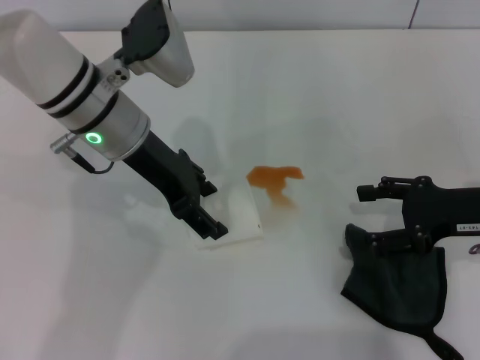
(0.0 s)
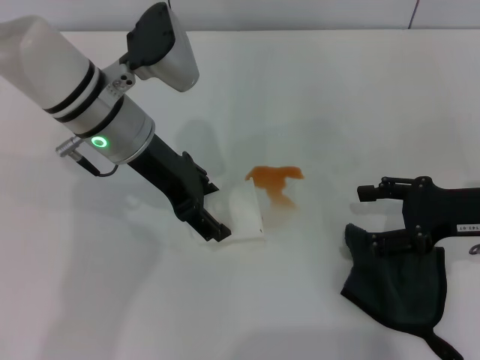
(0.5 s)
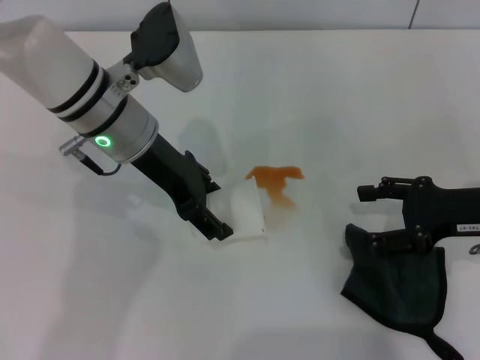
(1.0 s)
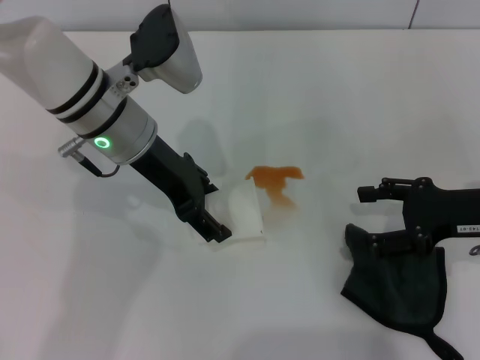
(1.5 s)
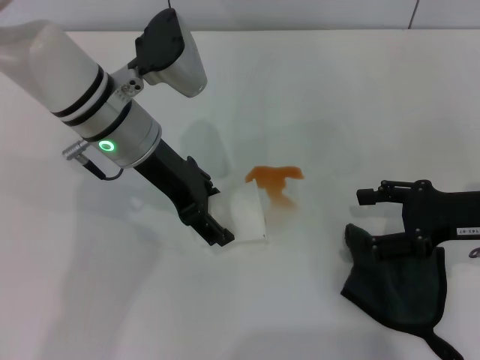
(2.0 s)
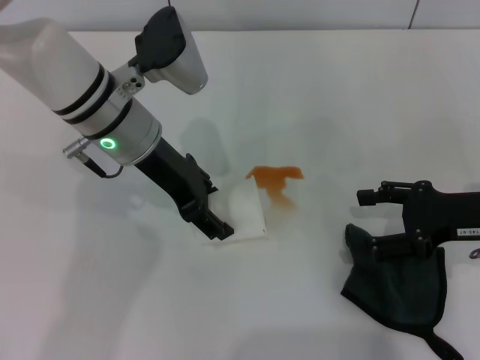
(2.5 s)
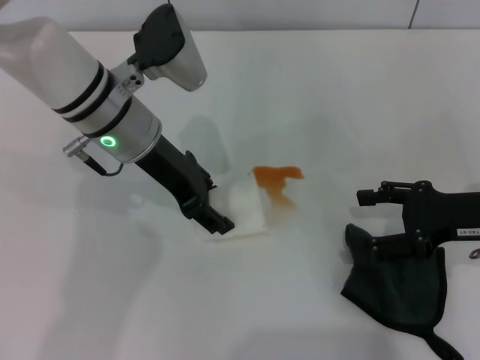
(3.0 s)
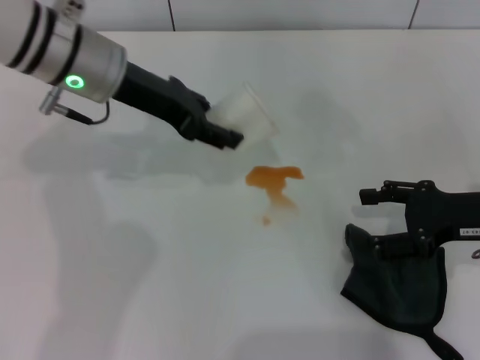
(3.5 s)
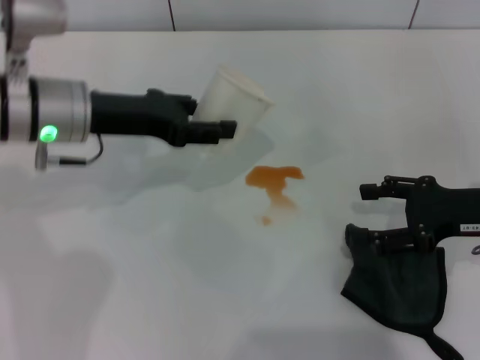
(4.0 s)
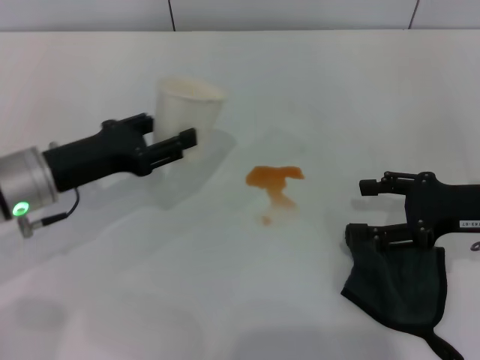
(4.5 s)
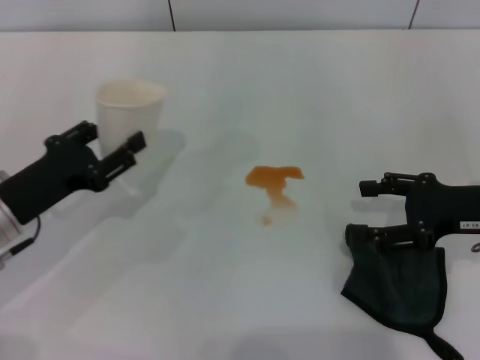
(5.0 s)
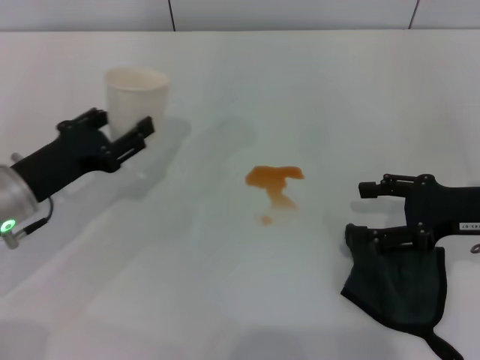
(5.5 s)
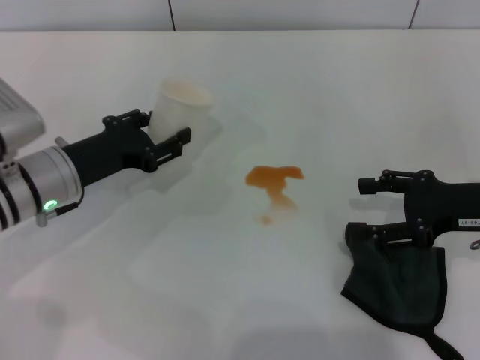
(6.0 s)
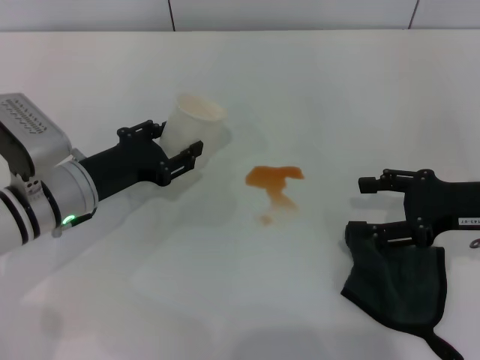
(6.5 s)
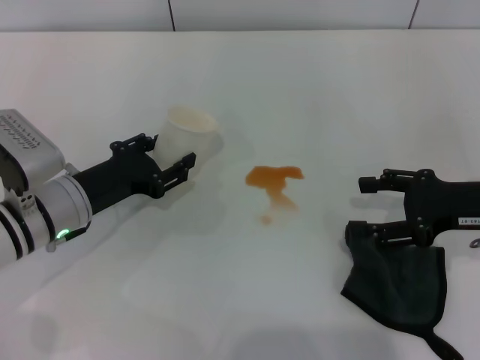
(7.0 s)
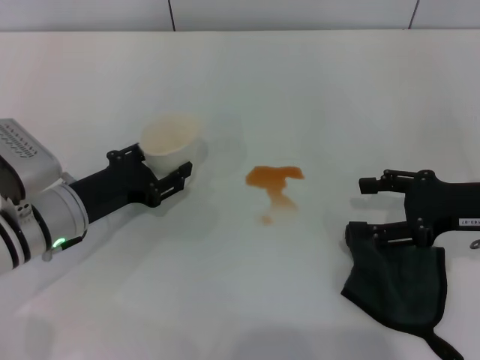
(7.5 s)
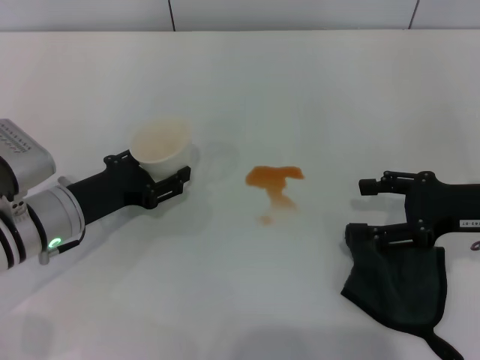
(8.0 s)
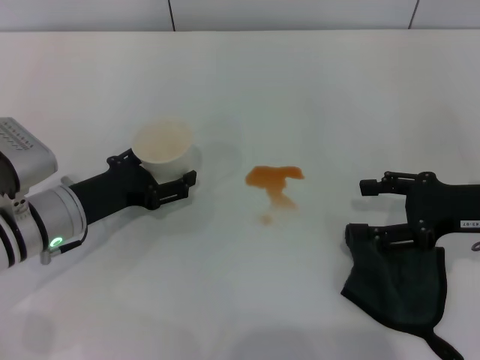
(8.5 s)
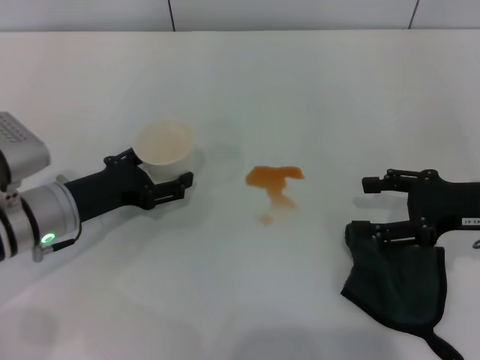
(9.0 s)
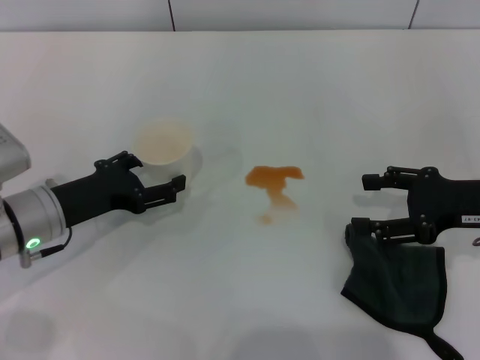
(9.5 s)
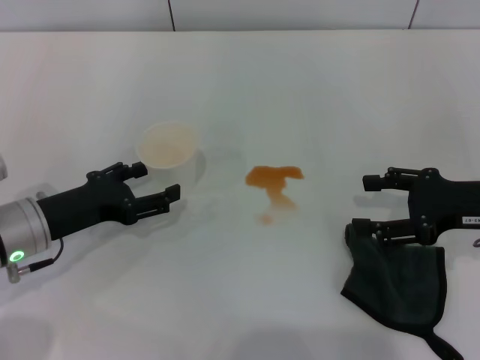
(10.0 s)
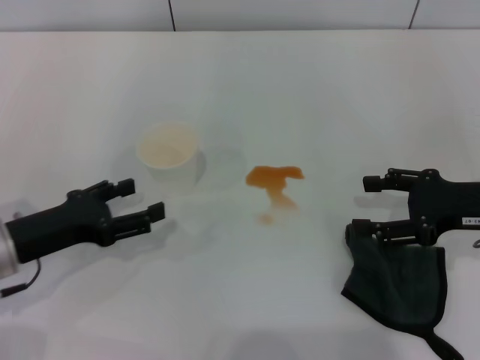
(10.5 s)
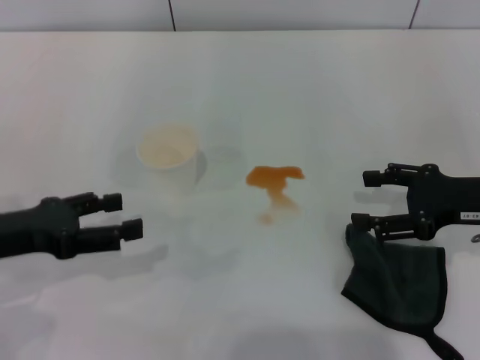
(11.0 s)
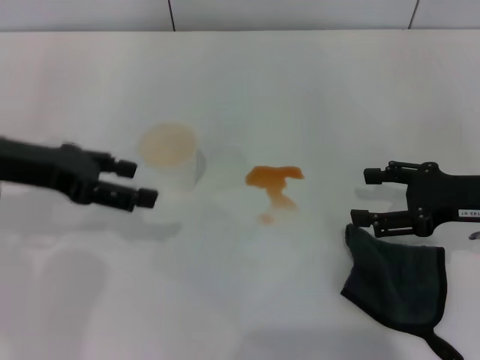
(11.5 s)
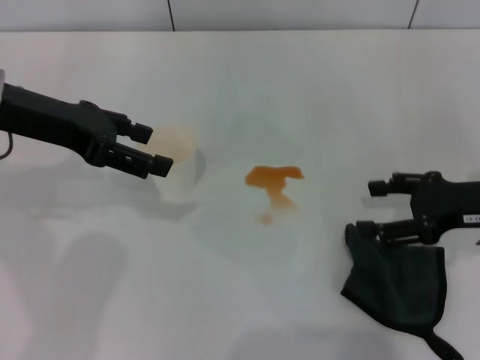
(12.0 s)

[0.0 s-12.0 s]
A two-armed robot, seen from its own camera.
Step, 0.0 to 2.0 s: Grasp the paper cup with the left gripper.
Step, 2.5 to 10.0 s: Stand the paper cup upright with the left gripper.
0.0 to 2.0 s: Both grippers stay put.
2.0 to 4.0 s: The left gripper shifts roughly 5 cm to the left, and closes.
4.0 to 6.0 s: The left gripper moves downward, approximately 10 cm.
6.0 to 8.0 s: The grippers make only small movements.
8.0 to 10.0 s: The left gripper opens its fingers.
10.0 to 12.0 s: The left gripper shifts roughly 15 cm upward and forward.

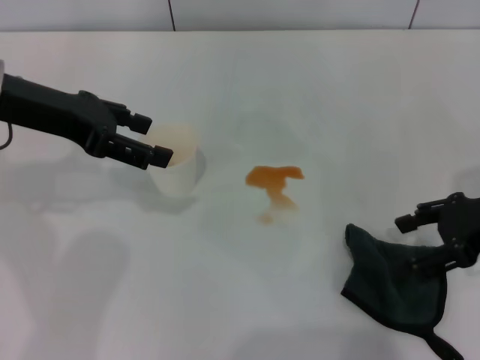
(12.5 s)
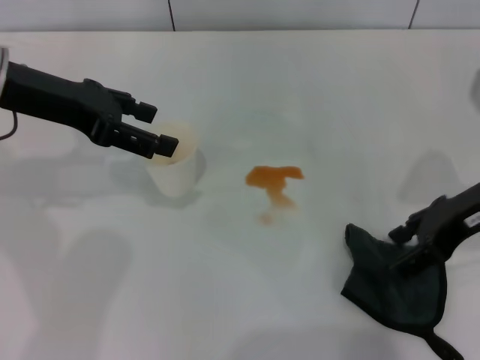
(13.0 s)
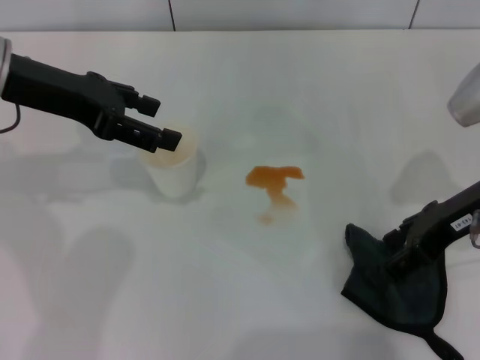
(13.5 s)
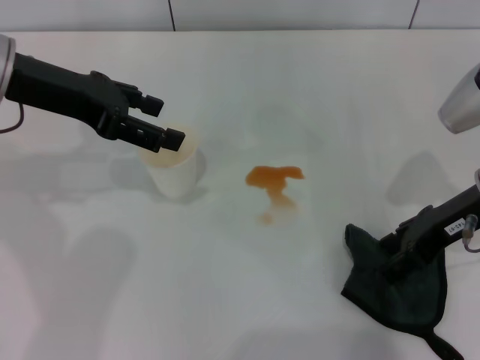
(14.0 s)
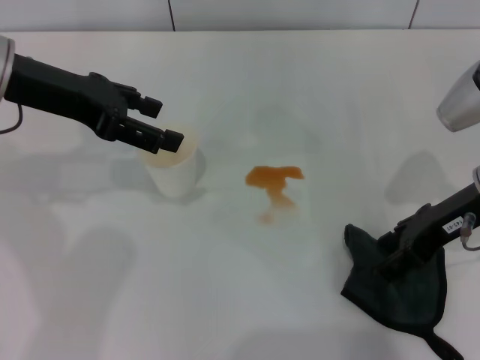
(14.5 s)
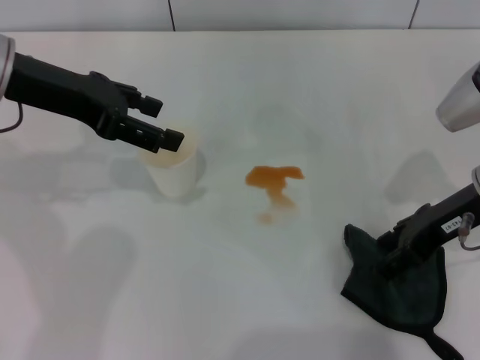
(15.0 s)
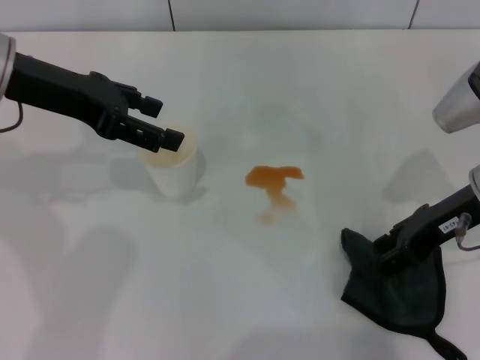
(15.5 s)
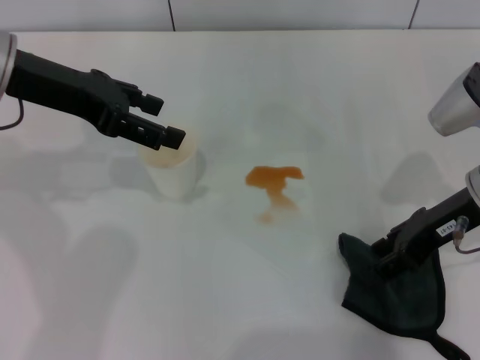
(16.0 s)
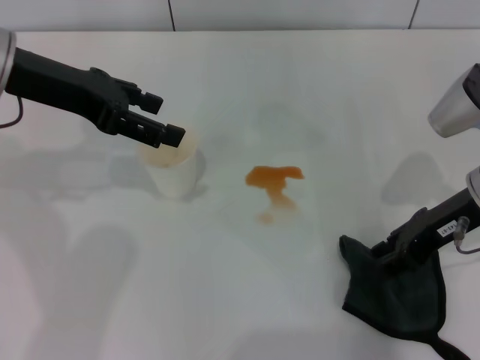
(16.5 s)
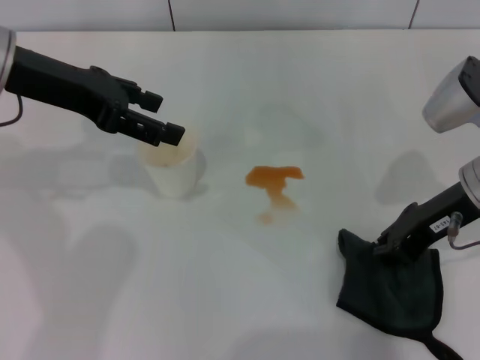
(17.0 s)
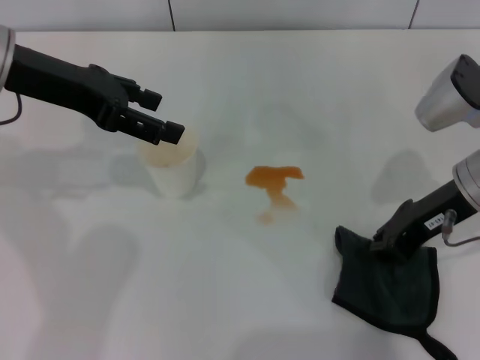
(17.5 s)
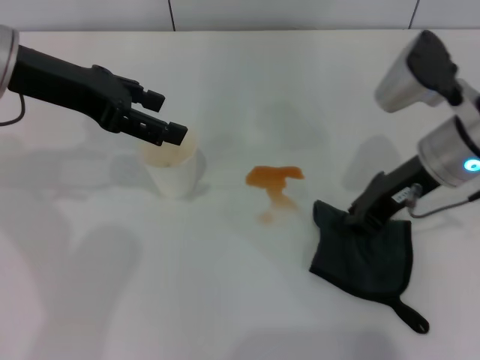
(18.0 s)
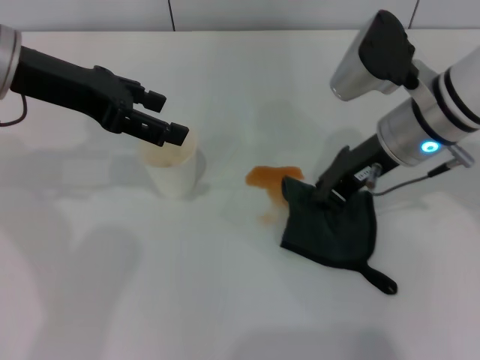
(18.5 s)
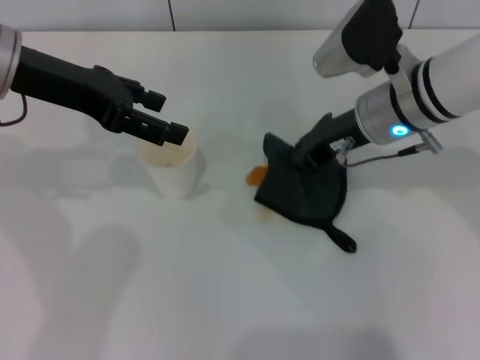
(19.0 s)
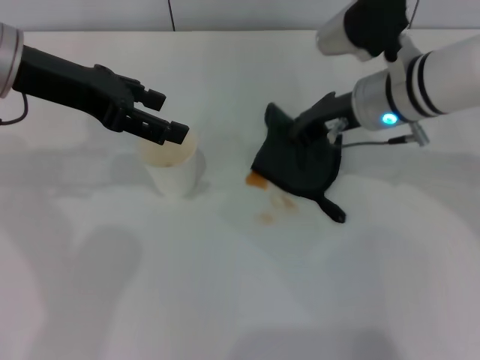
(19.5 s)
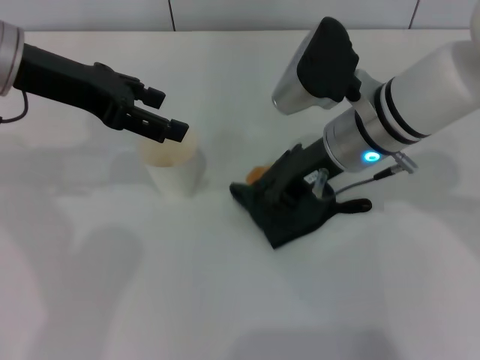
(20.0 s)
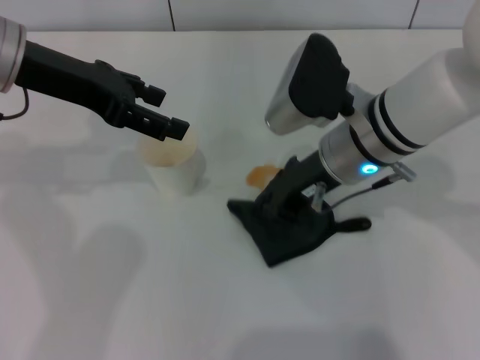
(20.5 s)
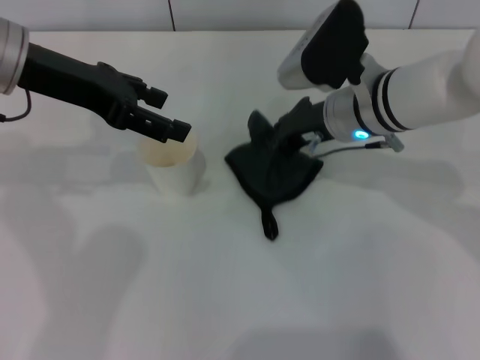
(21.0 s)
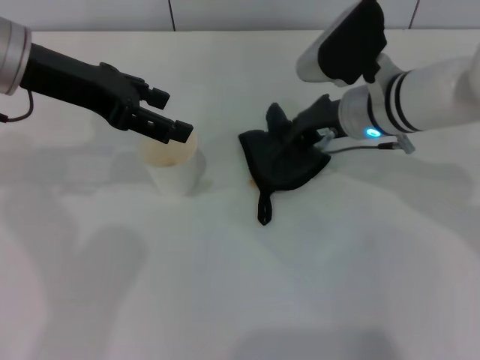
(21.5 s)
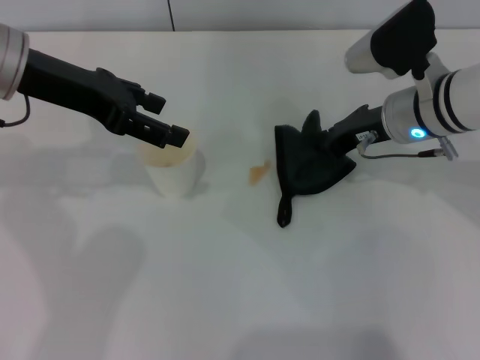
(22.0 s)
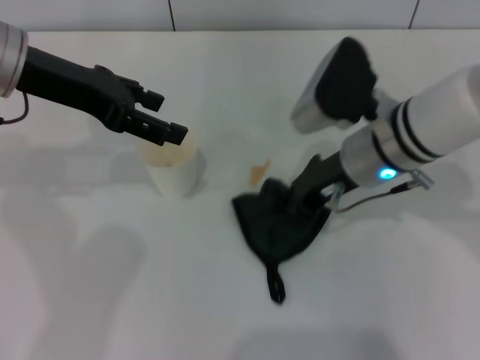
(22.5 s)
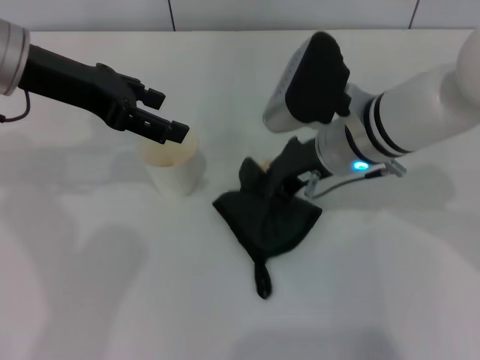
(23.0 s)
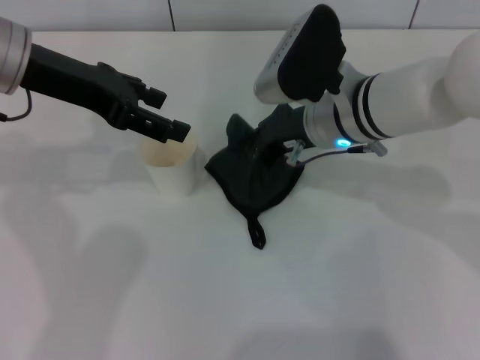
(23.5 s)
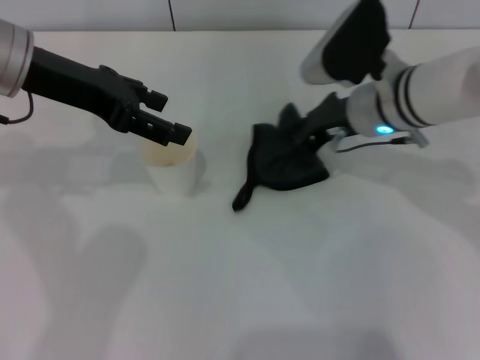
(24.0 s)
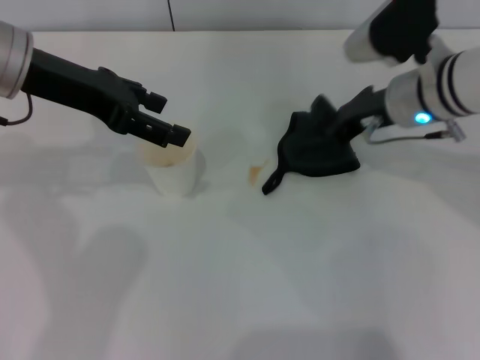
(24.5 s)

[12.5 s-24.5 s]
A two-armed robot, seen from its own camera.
Step, 12.5 to 16.5 s: Grasp the rag with the right gripper.
12.5 to 14.5 s: The right gripper is displaced to the left by about 5 cm.
14.5 to 16.5 s: Both grippers stay put.
16.5 to 18.5 s: The right gripper is displaced to the left by roughly 10 cm, and closes its fingers.
18.5 to 20.5 s: The right gripper shifts roughly 5 cm to the left.
22.5 to 24.5 s: The right gripper moves about 5 cm.

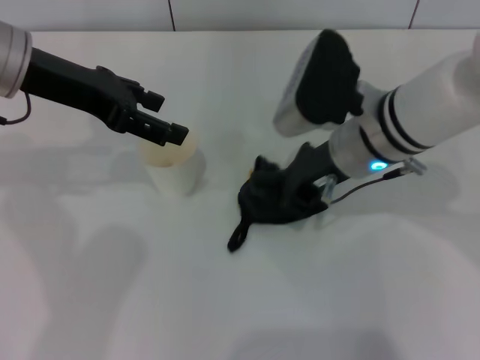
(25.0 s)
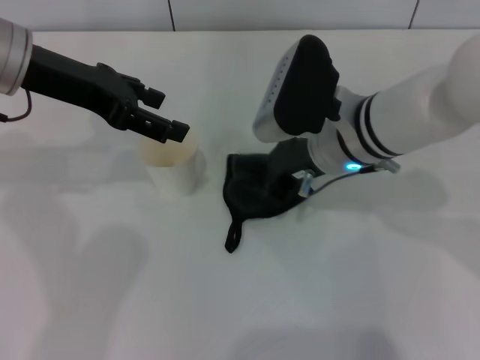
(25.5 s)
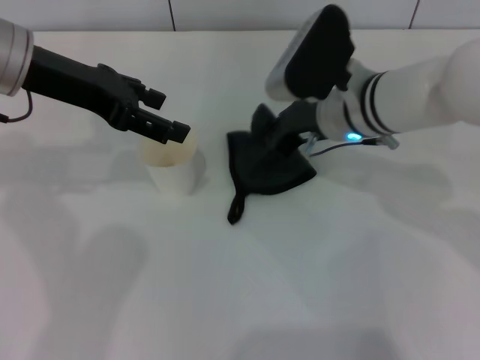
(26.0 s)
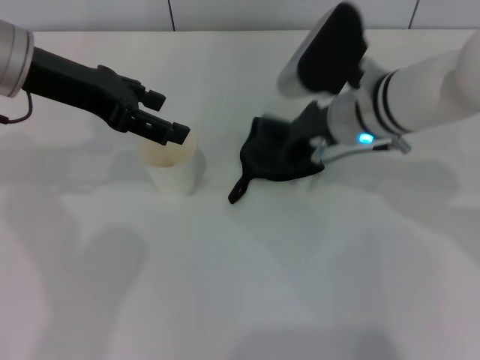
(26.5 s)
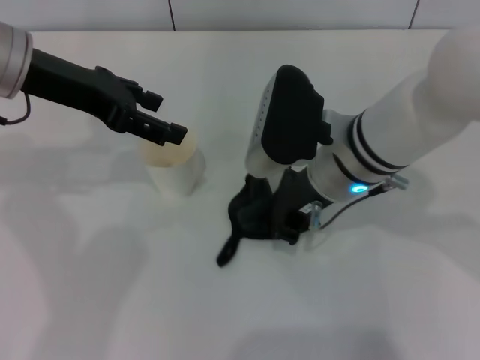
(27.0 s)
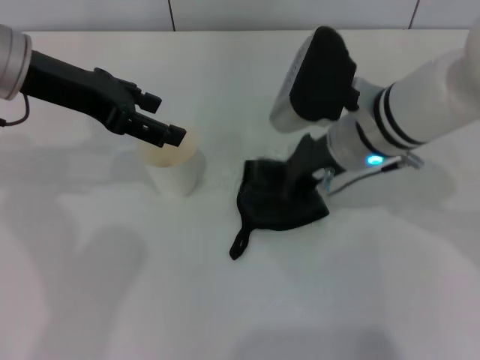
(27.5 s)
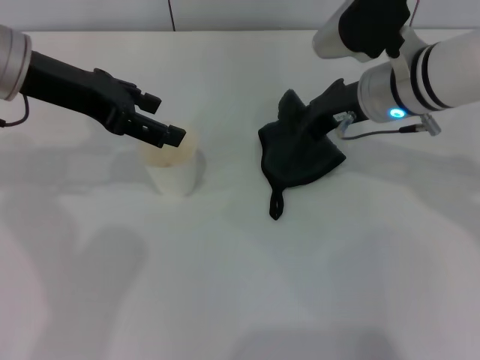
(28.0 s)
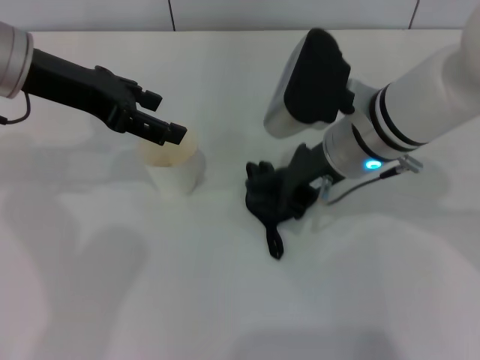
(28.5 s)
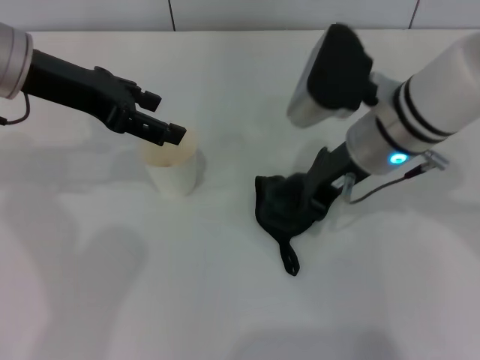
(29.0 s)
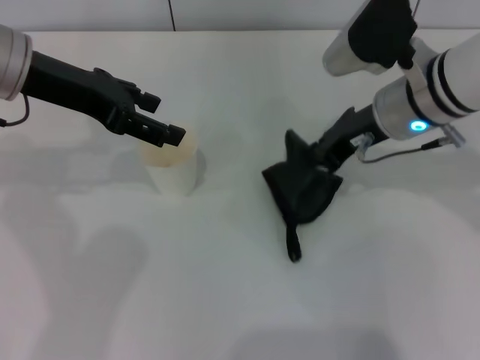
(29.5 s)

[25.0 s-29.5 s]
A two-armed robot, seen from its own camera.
27.0 to 29.5 s: The right gripper moves left and right over approximately 5 cm, changing direction 2 times.
